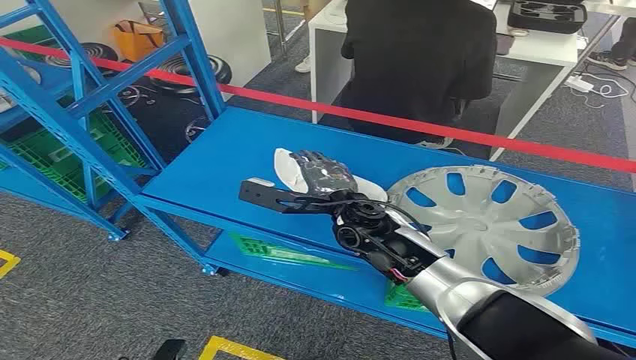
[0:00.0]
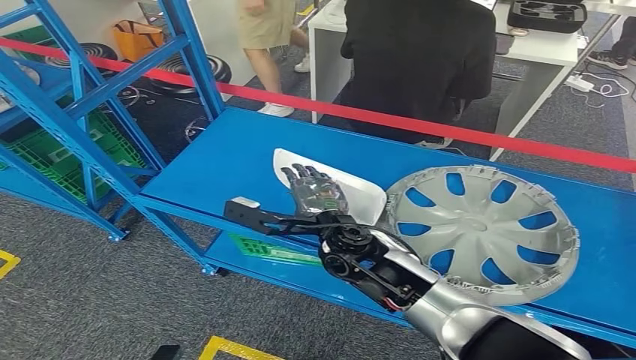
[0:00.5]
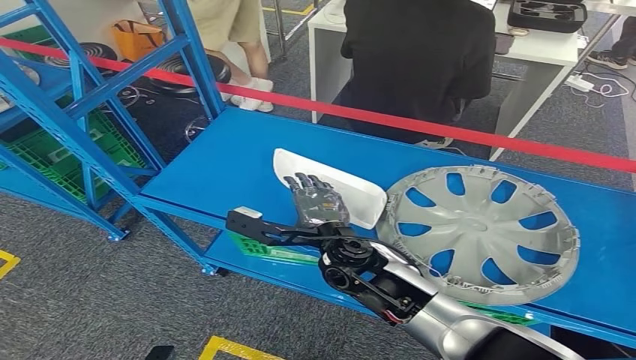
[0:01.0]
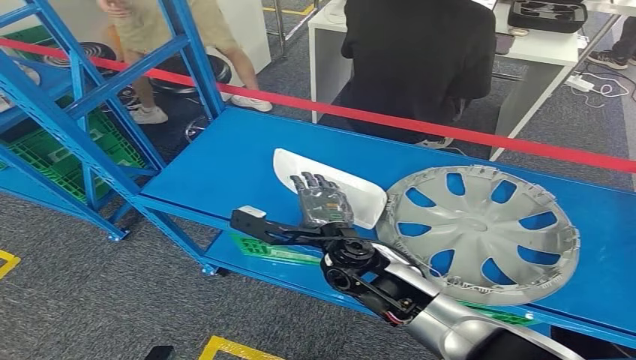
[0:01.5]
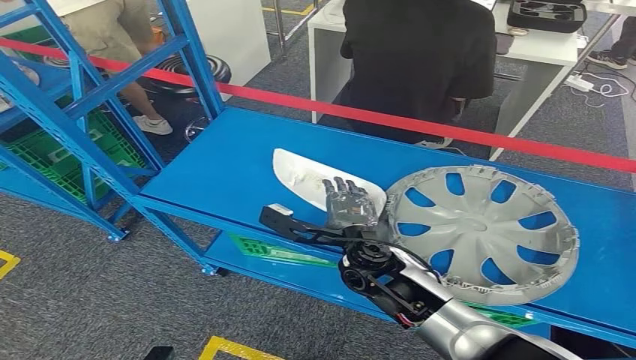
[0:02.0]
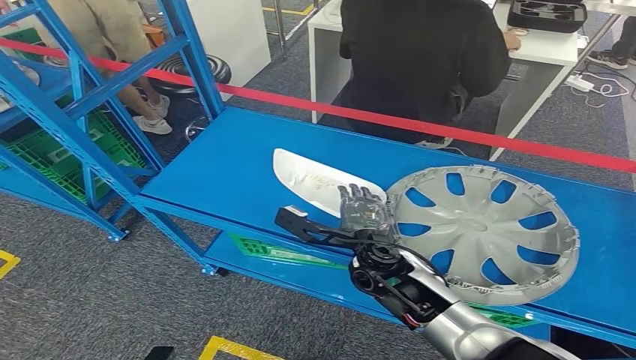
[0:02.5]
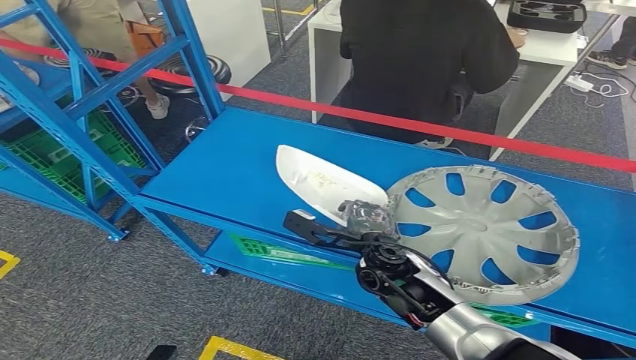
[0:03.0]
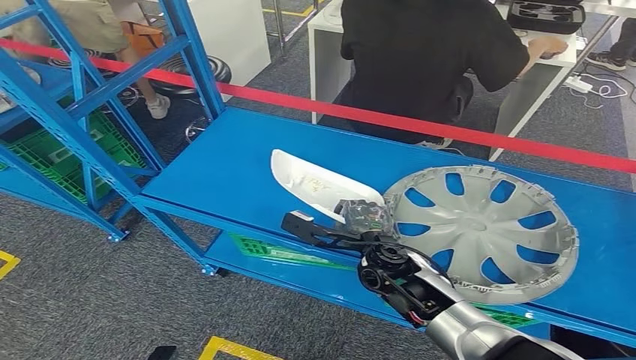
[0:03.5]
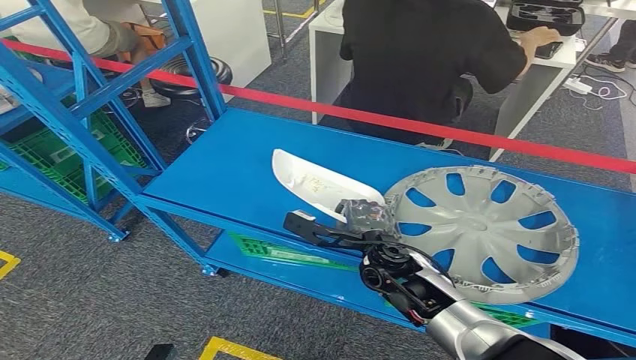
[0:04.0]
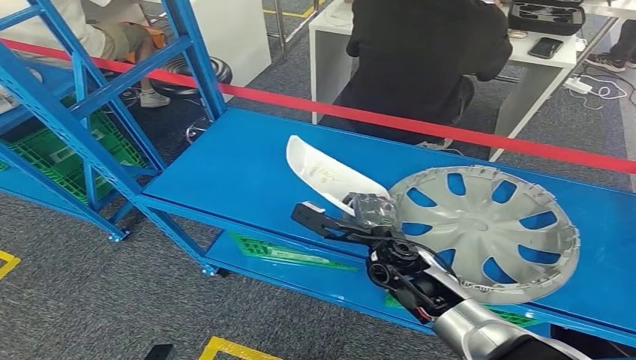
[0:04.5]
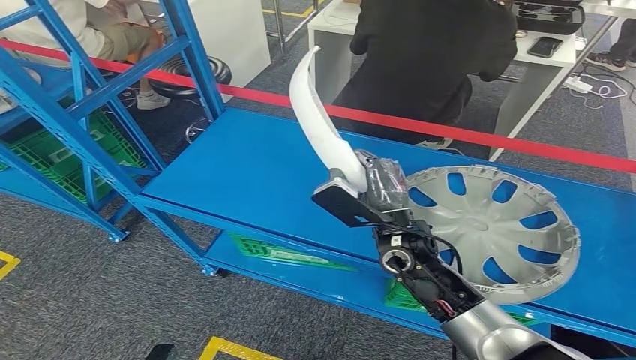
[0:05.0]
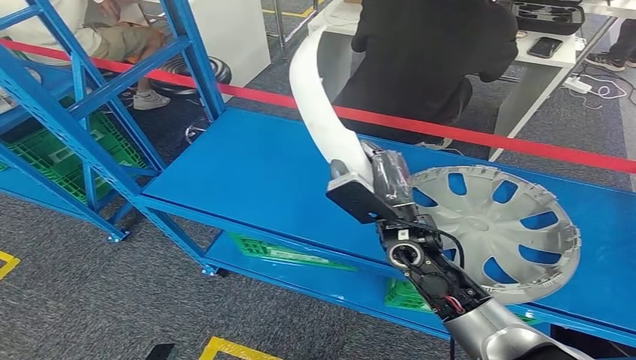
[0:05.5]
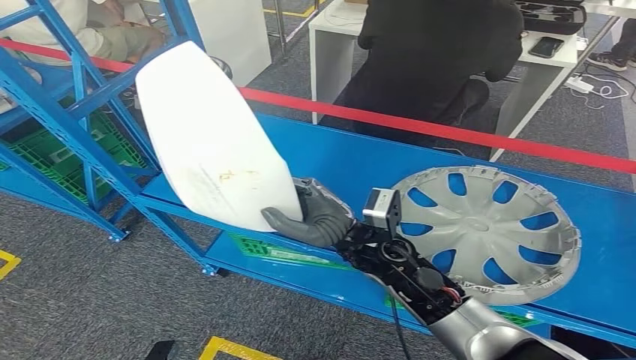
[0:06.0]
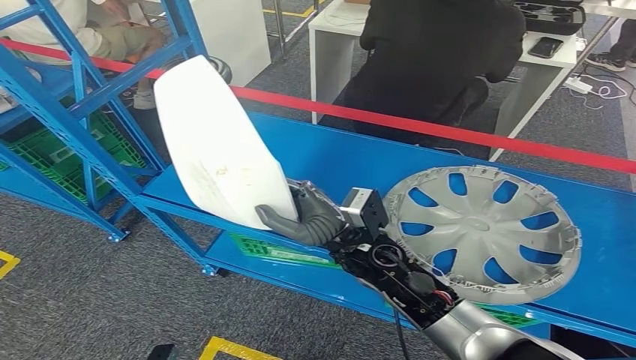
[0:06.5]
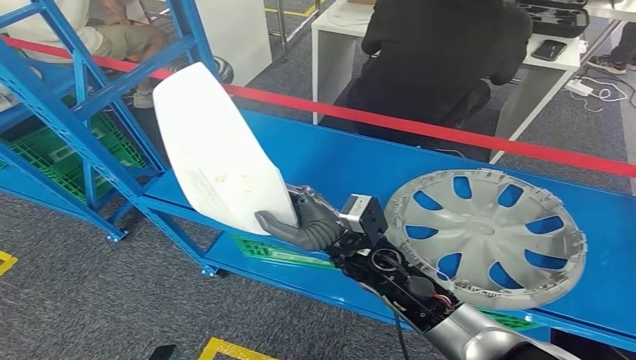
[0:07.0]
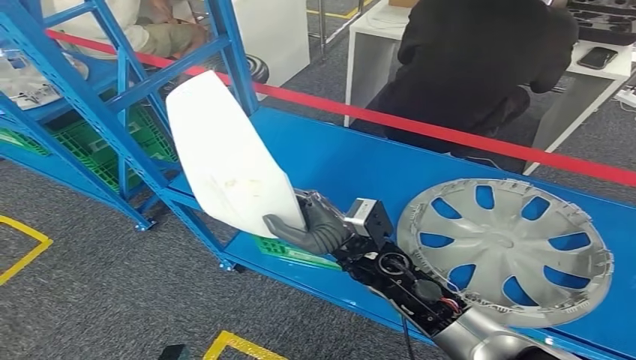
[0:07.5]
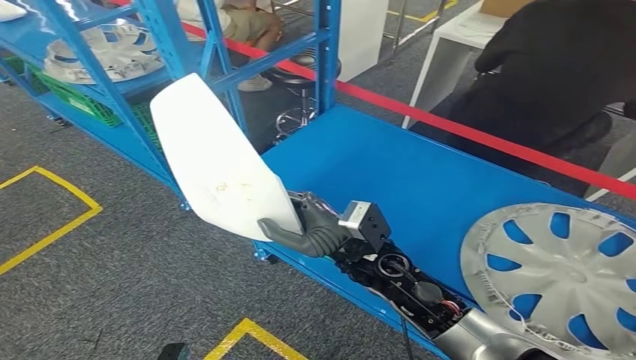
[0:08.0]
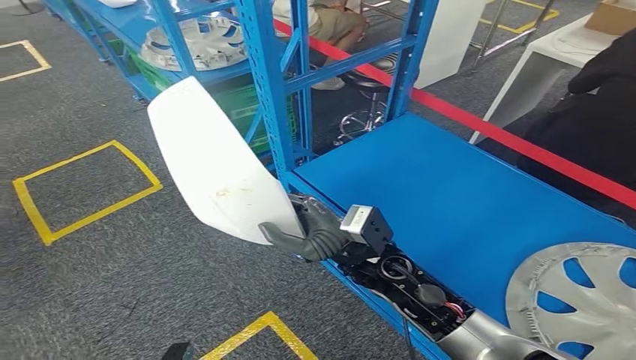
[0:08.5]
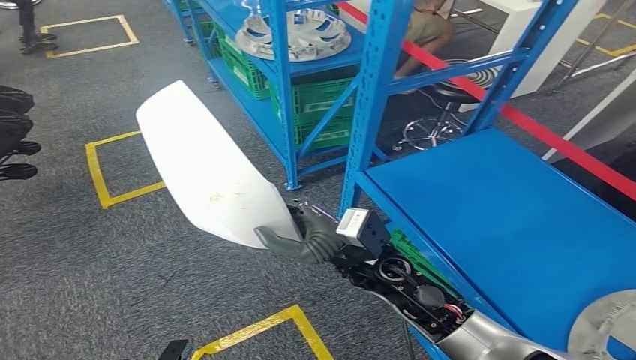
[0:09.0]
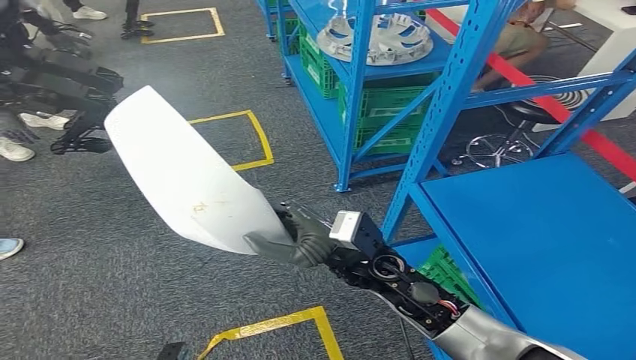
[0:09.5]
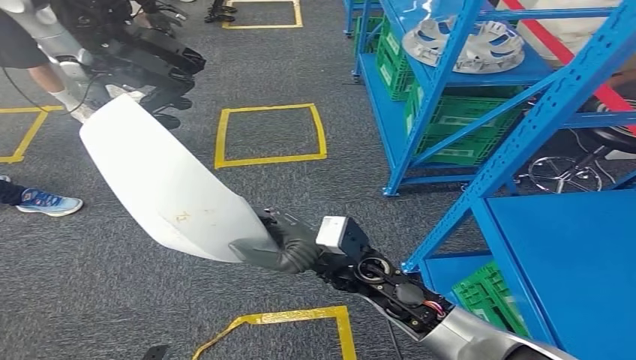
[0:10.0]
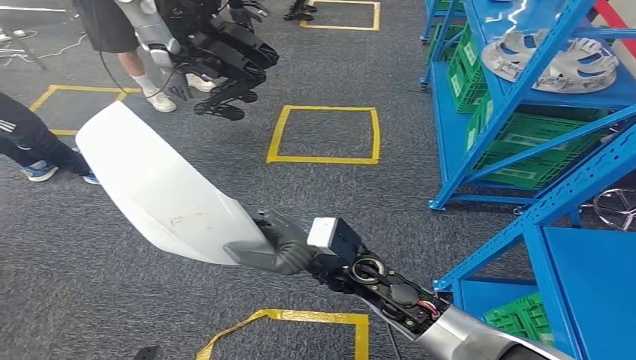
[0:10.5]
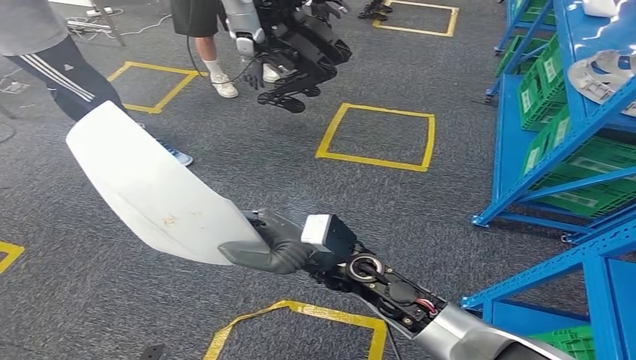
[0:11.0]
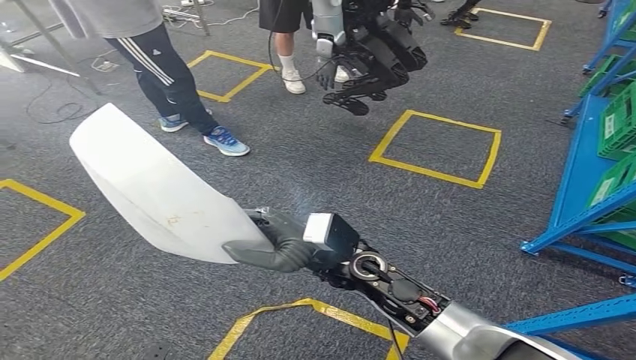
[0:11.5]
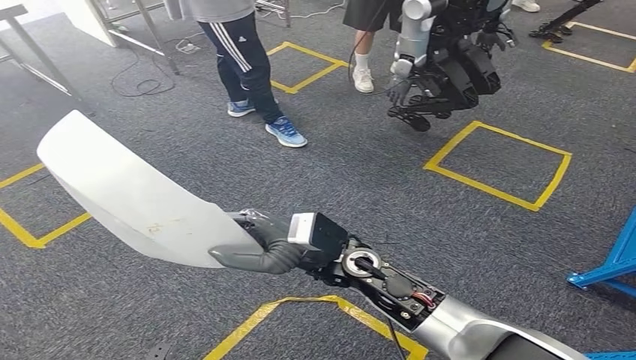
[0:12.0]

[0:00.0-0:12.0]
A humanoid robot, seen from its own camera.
Step, 0:00.0 to 0:06.0: Pick up the small component from the shelf.
0:02.0 to 0:04.0: The right hand ends up about 5 cm from where it was.

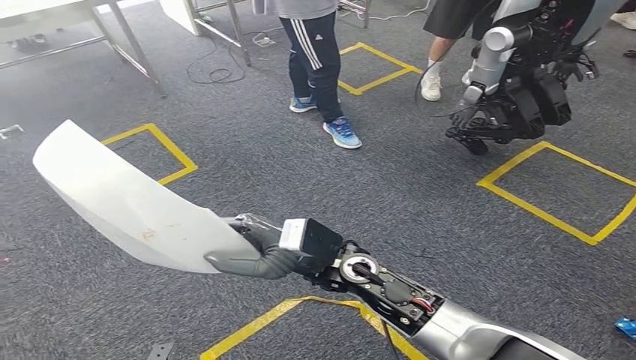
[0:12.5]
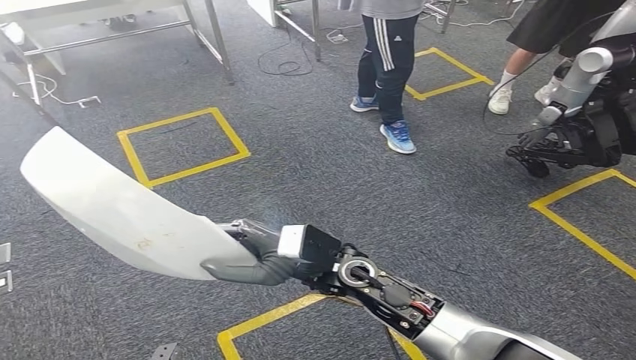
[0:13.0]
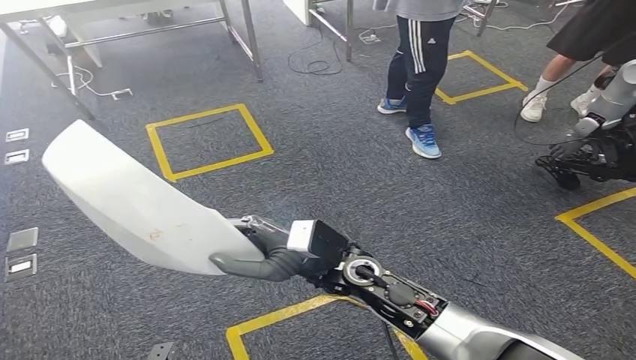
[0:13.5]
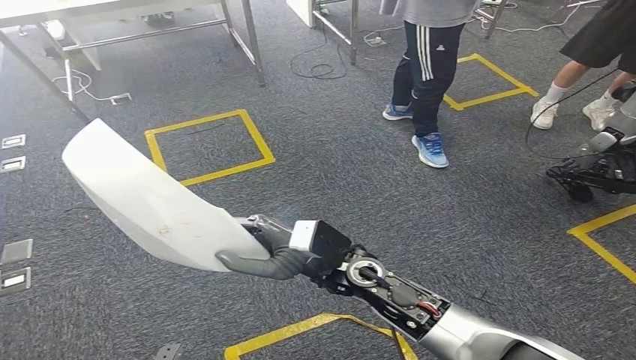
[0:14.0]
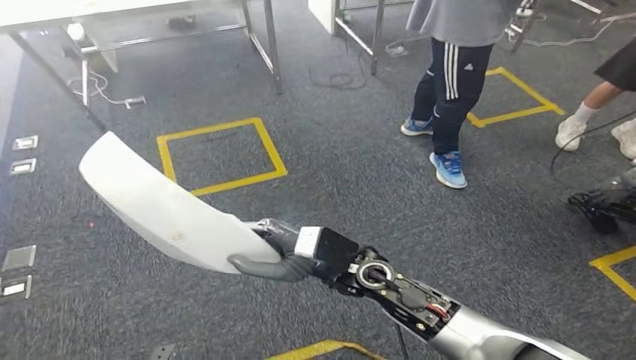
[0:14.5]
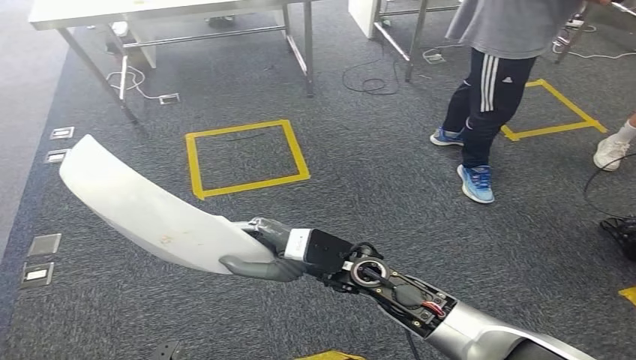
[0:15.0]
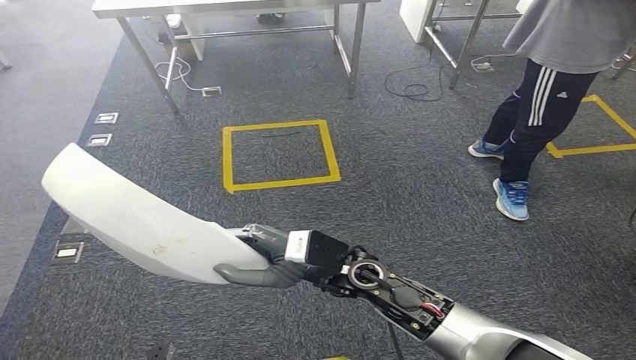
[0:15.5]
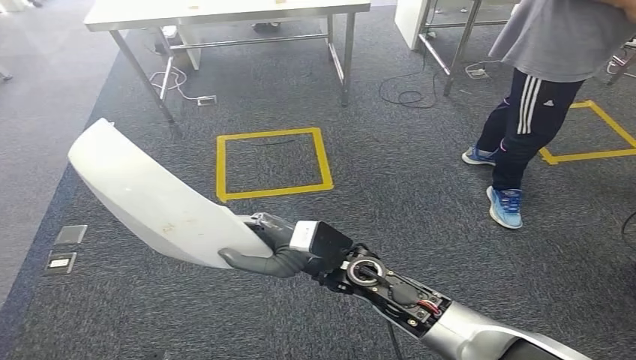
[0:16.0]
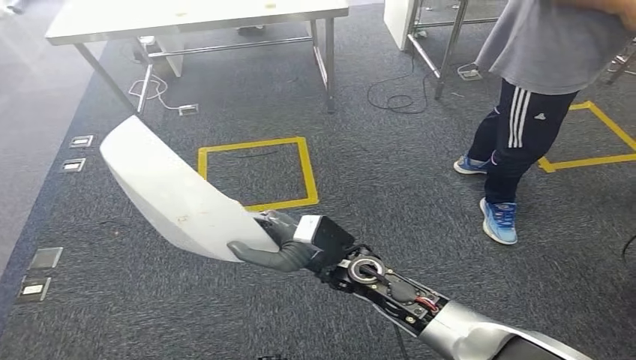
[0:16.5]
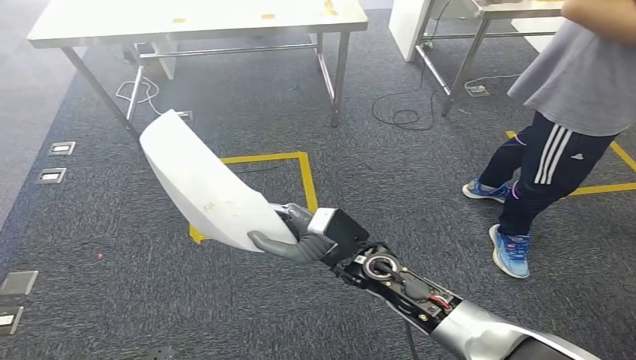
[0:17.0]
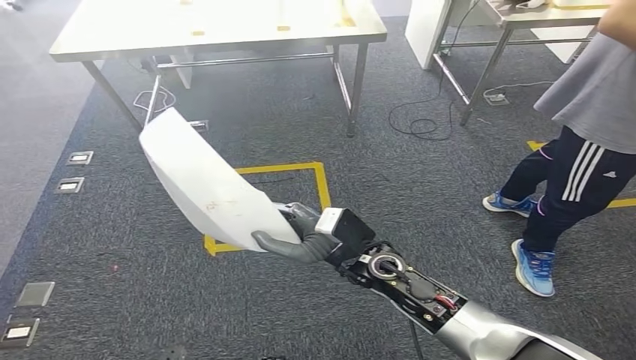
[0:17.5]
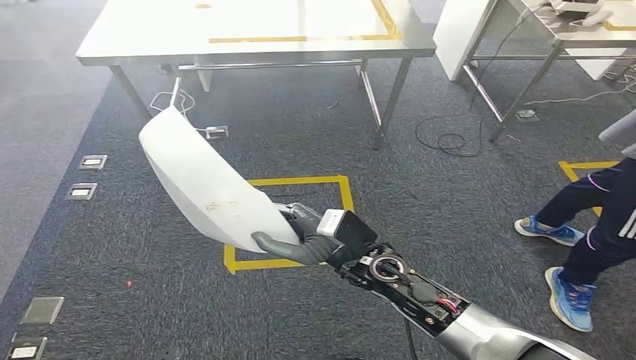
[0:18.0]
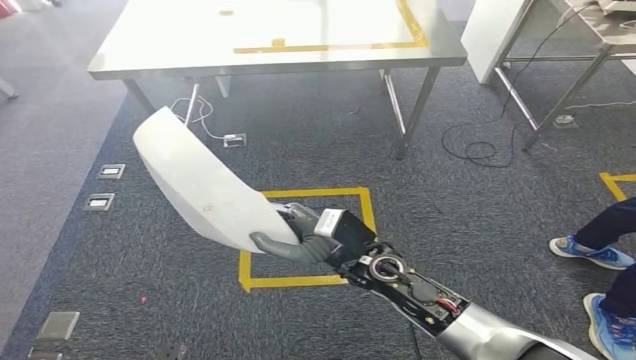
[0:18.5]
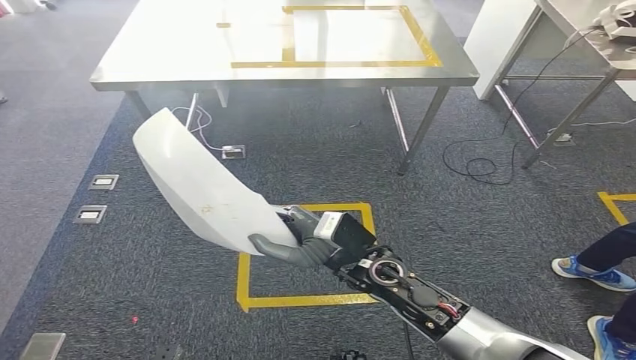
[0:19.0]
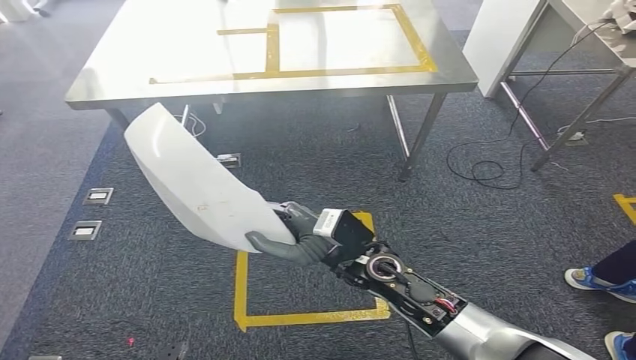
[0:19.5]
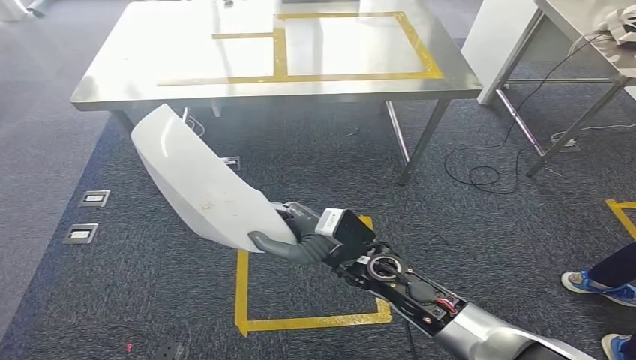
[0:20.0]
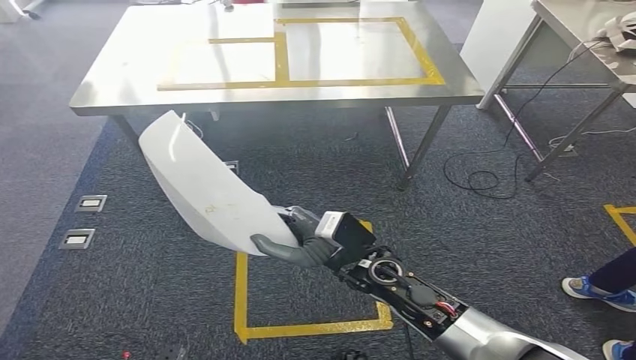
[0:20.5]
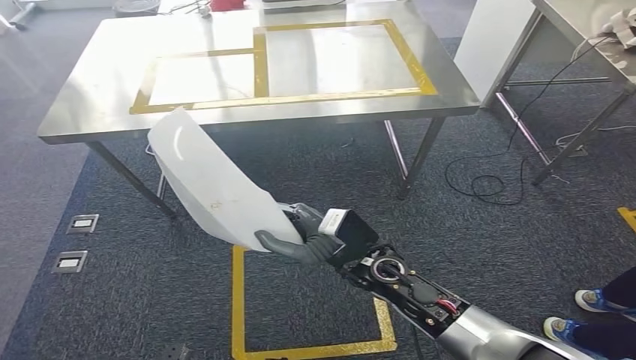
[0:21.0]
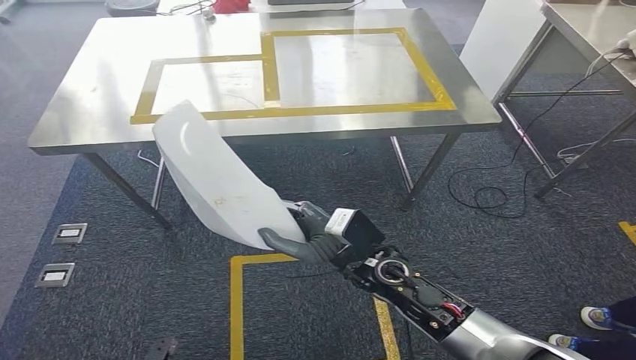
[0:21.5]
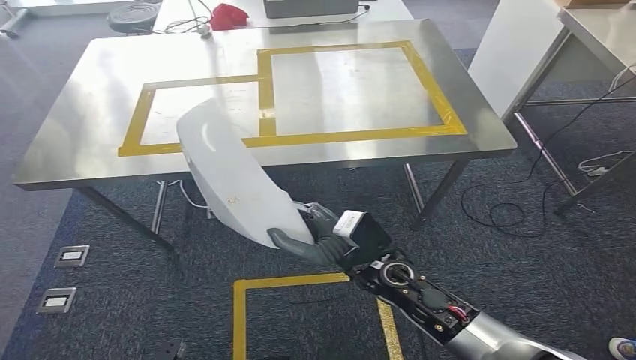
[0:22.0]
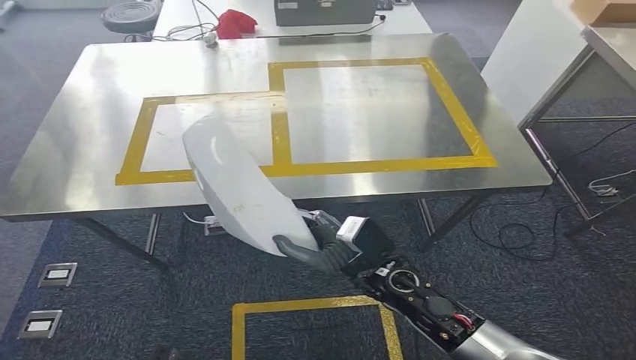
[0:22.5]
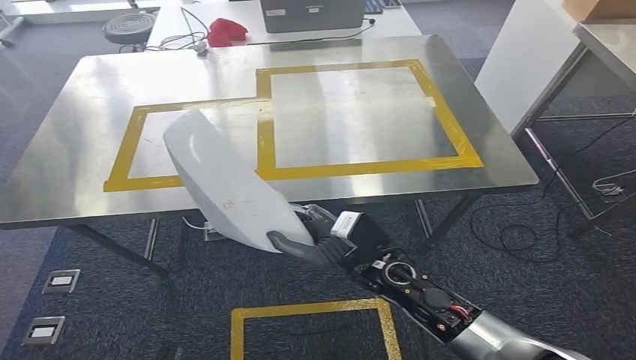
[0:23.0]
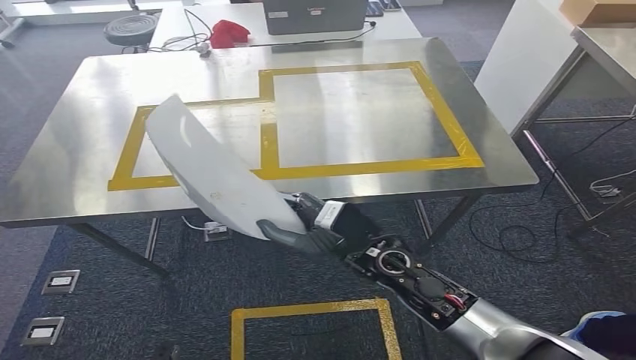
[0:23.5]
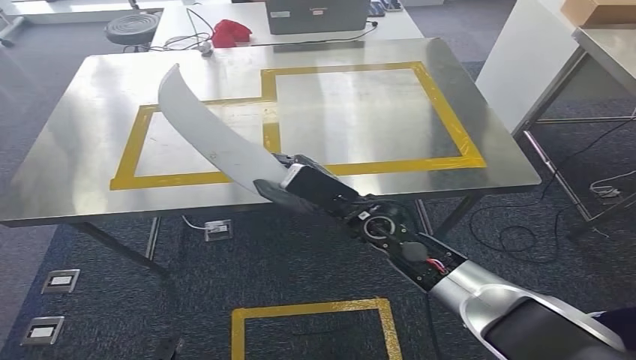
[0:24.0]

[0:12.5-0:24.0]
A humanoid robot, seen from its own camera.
Step, 0:12.5 to 0:16.0: Move the small component to the workbench.
